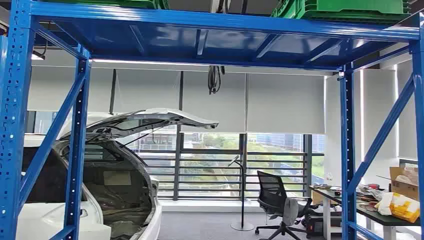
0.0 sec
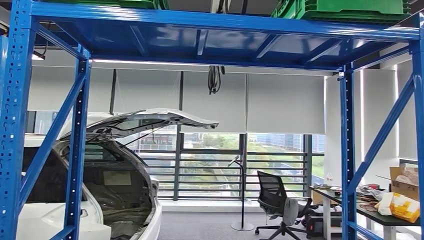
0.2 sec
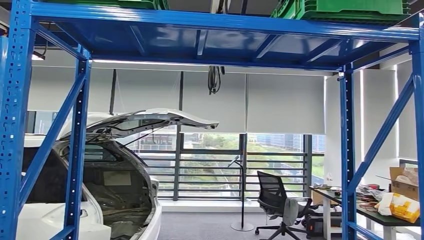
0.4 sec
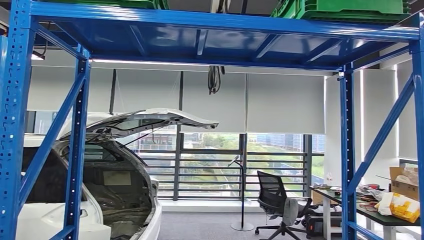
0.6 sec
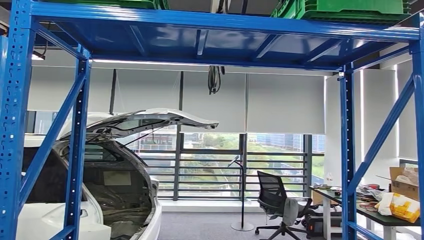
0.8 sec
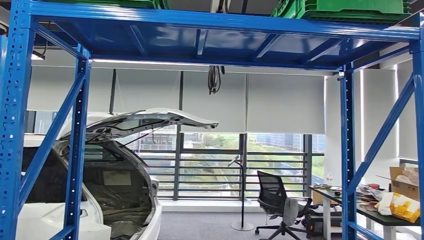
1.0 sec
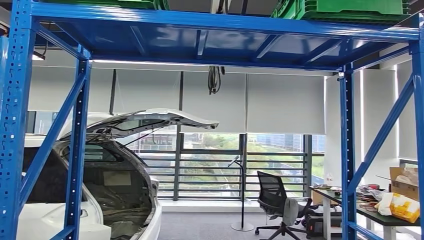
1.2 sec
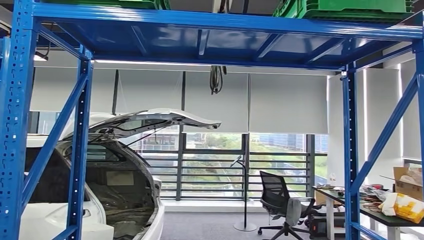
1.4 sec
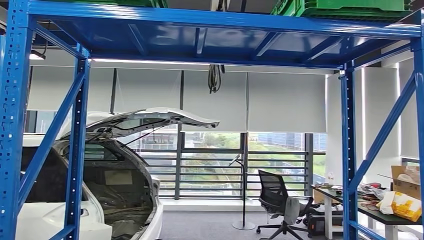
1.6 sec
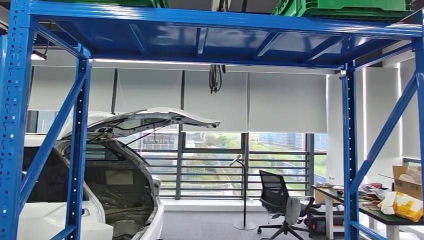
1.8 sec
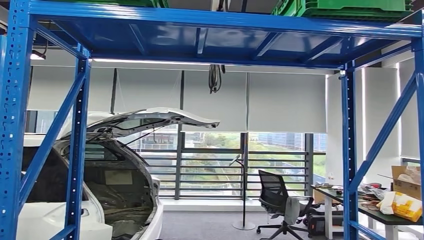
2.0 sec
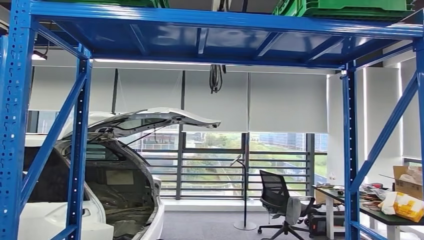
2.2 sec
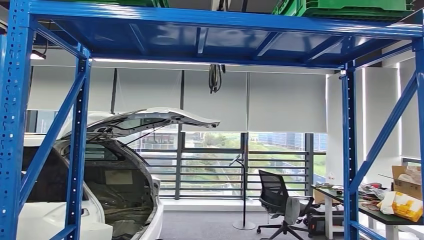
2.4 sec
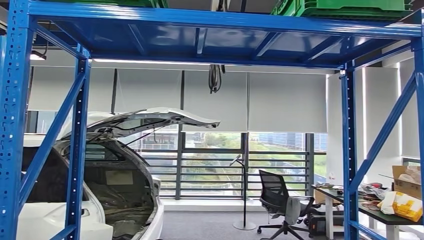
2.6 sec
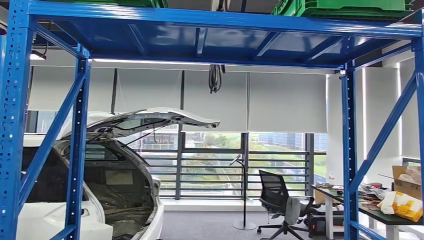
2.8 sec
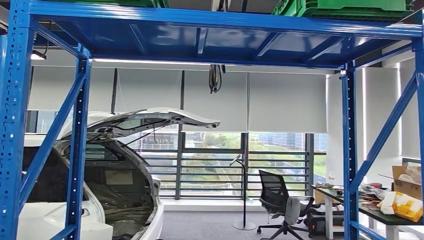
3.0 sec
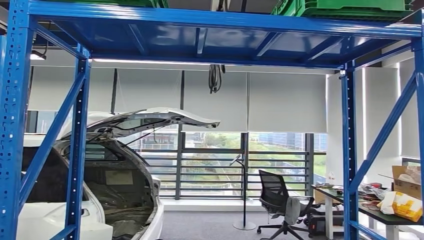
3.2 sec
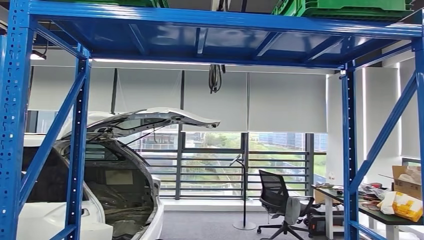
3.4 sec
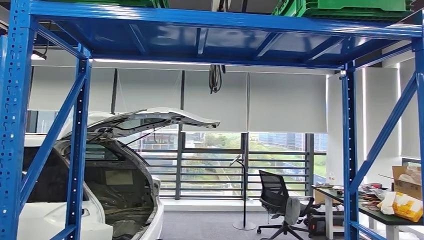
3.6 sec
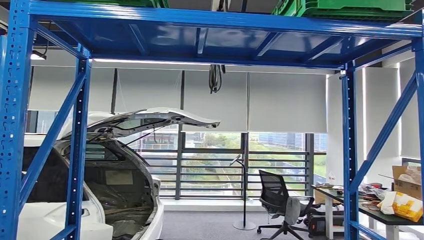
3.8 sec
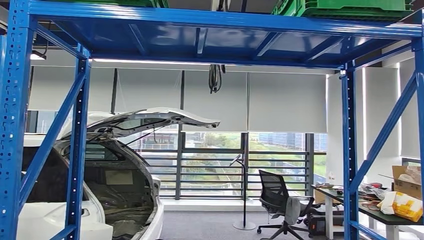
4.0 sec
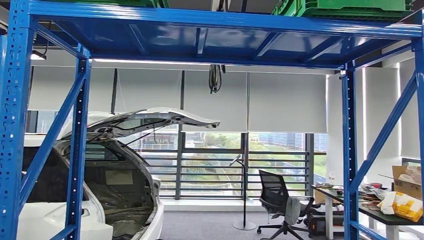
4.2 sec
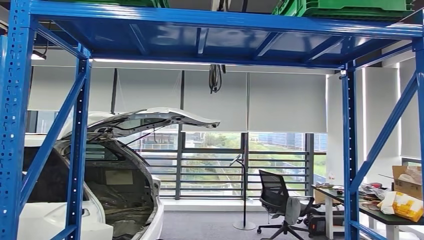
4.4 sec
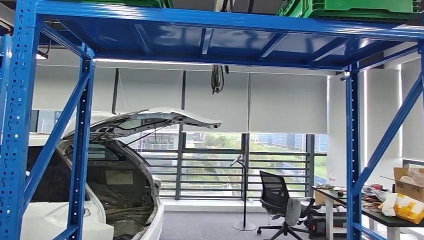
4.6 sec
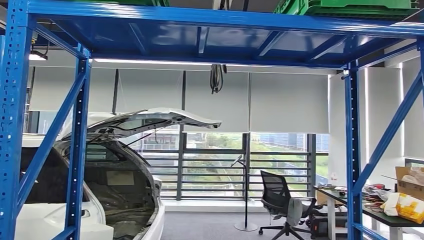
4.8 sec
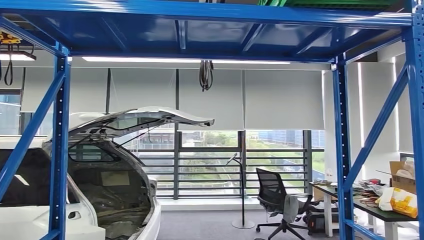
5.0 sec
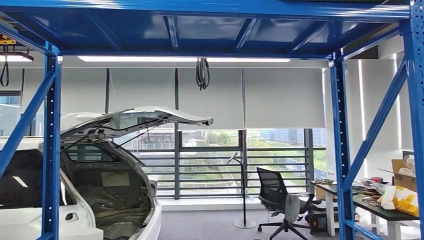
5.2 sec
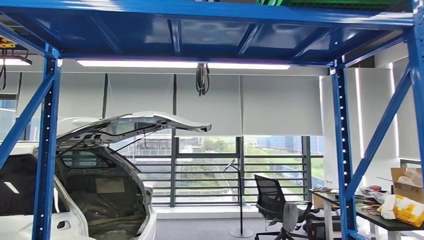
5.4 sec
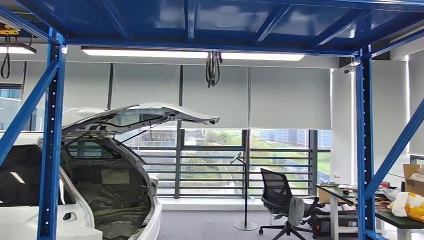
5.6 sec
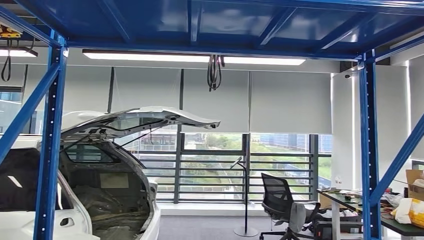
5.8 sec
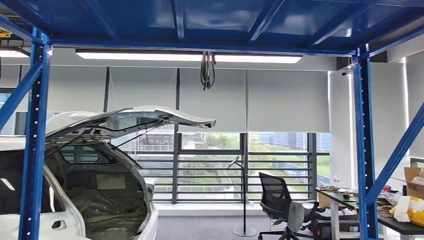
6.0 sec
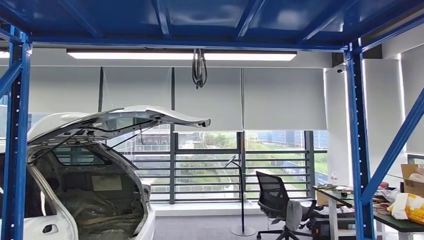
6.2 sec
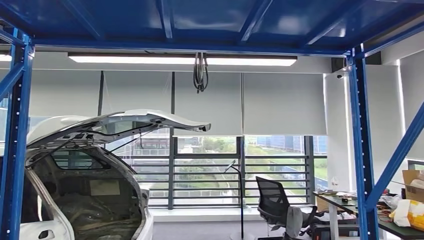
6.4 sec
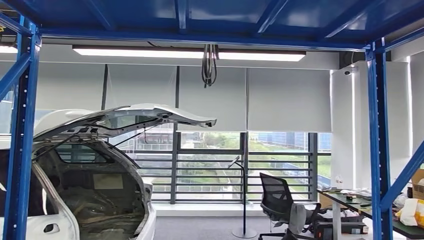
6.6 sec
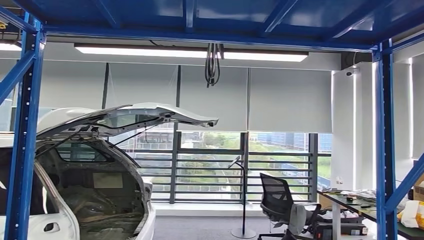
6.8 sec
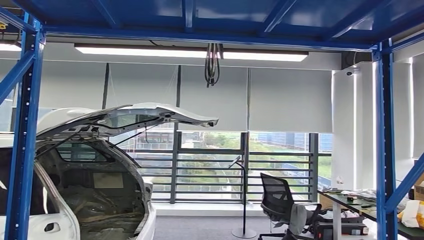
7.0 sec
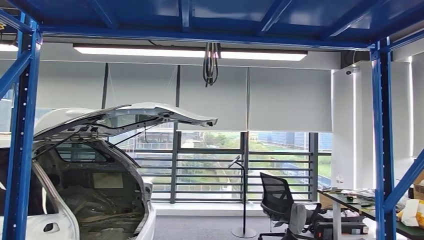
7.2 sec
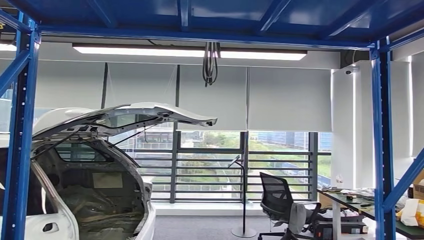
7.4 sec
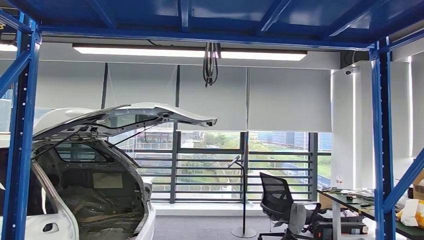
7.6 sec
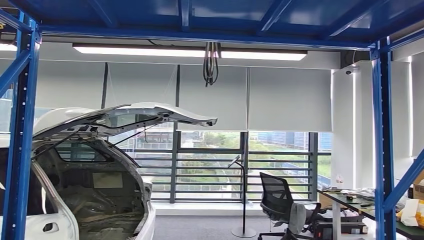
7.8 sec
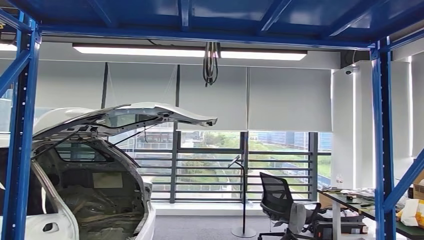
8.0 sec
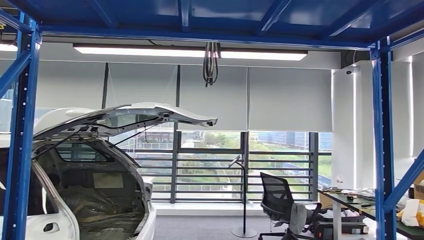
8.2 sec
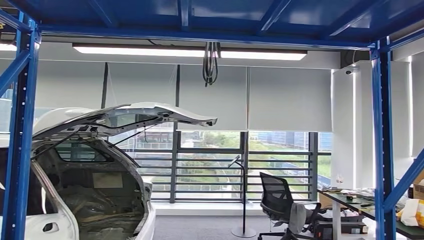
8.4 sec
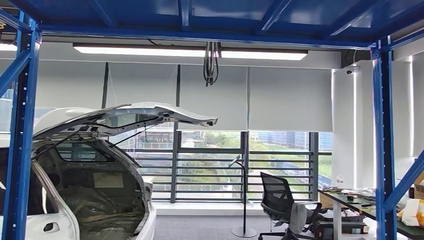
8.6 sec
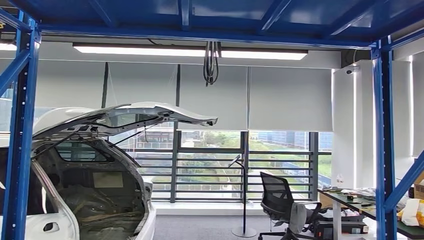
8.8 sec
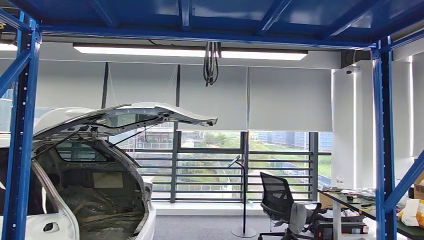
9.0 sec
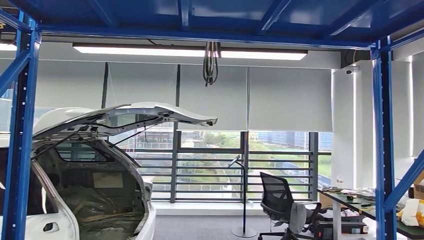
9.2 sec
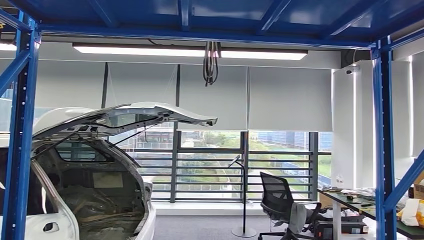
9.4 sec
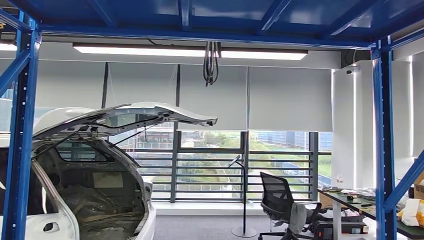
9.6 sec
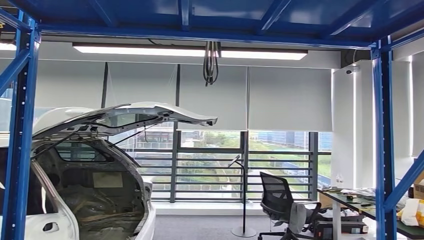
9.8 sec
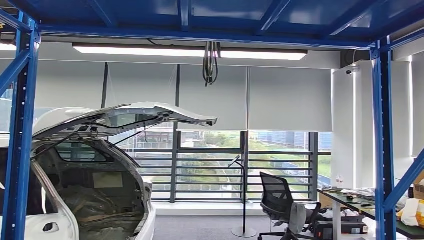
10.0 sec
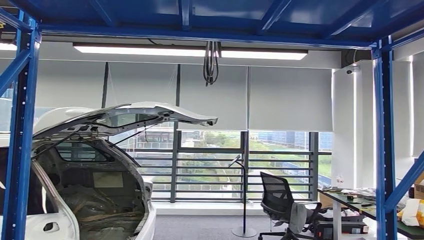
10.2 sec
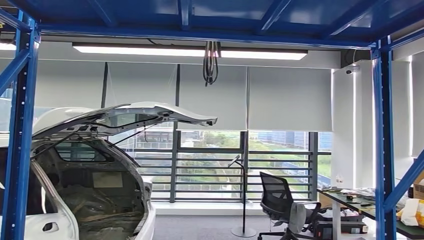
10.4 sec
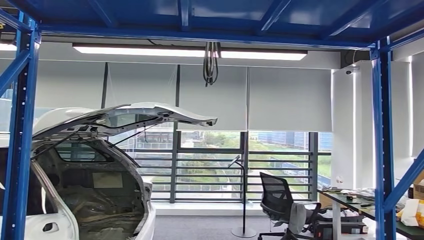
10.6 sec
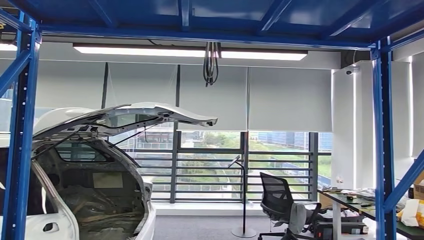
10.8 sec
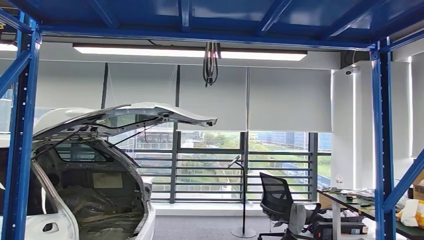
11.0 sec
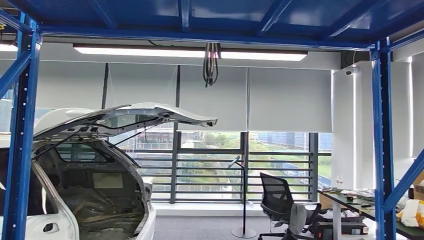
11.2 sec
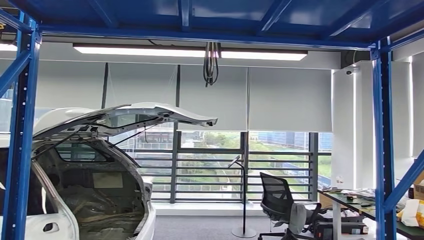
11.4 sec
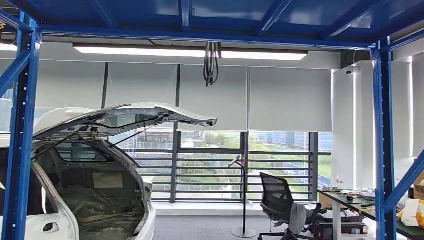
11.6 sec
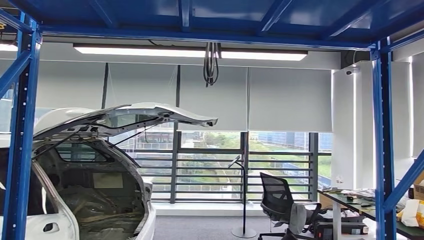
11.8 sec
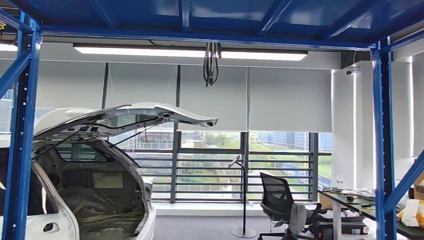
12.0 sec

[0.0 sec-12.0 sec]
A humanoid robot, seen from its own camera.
1.6 sec to 3.0 sec: The right hand heads upward and to the left, covering roughly 10 cm.
7.6 sec to 9.0 sec: The right hand goes approximately 15 cm forward and downward.
9.0 sec to 10.4 sec: The right hand heads to the left, covering about 5 cm.
10.4 sec to 12.0 sec: The right hand goes roughly 5 cm to the left.

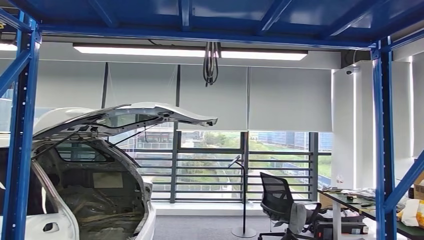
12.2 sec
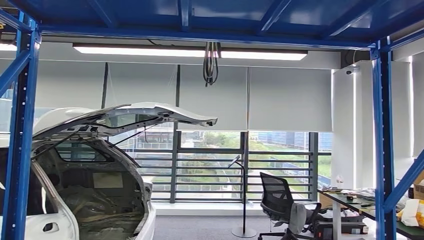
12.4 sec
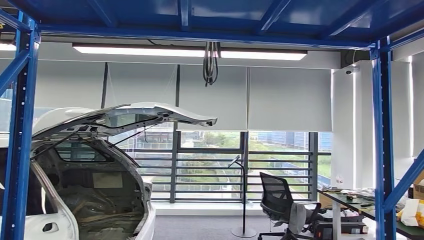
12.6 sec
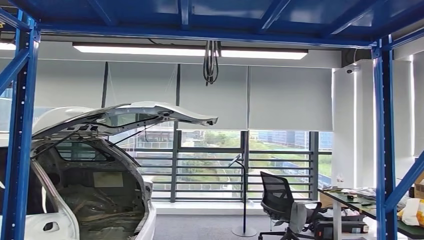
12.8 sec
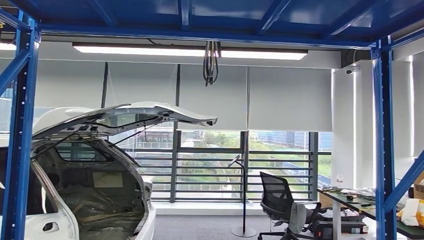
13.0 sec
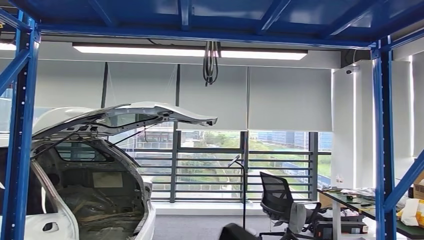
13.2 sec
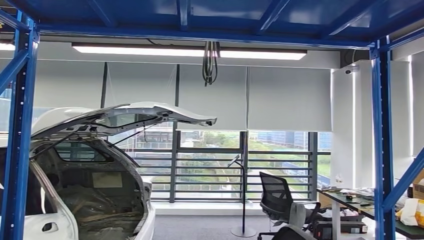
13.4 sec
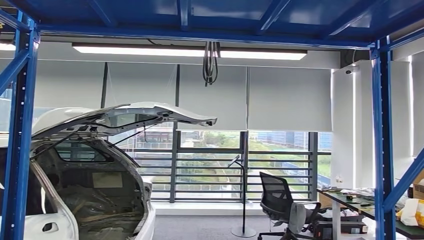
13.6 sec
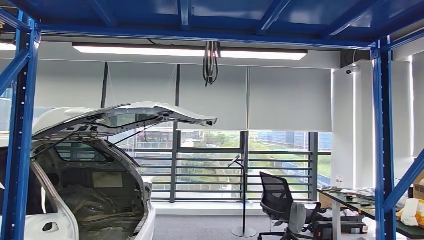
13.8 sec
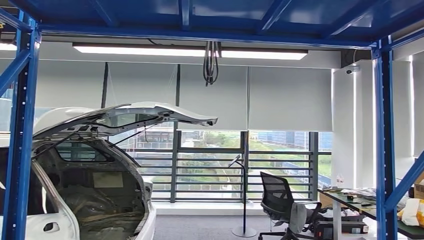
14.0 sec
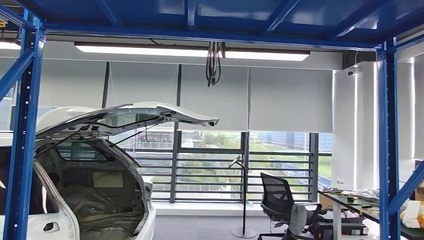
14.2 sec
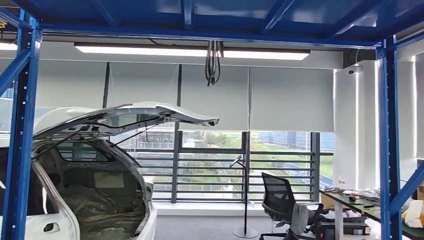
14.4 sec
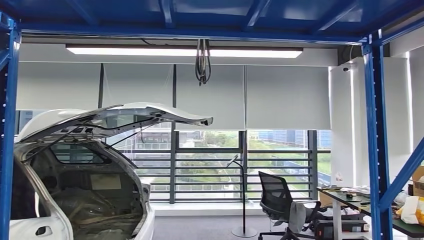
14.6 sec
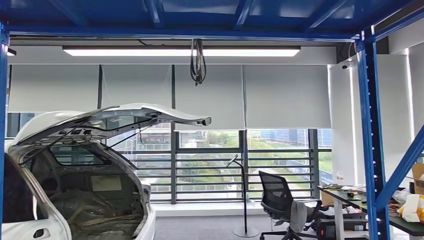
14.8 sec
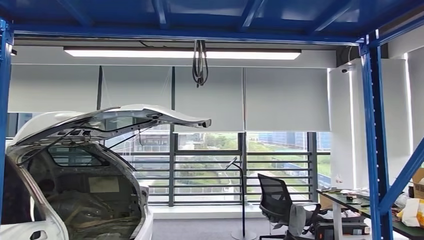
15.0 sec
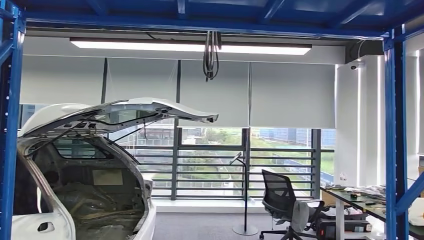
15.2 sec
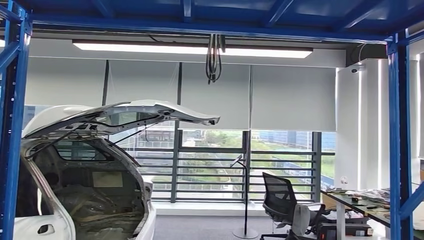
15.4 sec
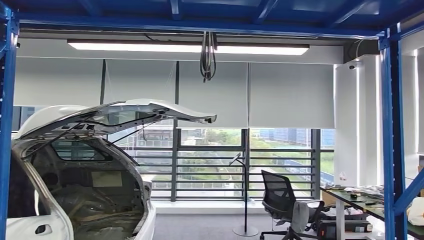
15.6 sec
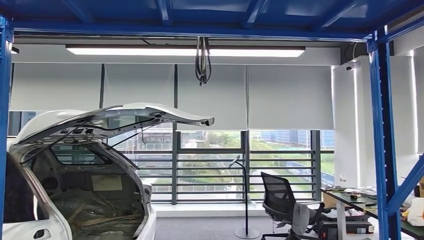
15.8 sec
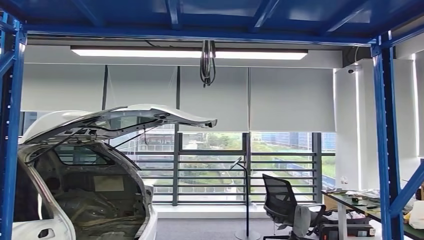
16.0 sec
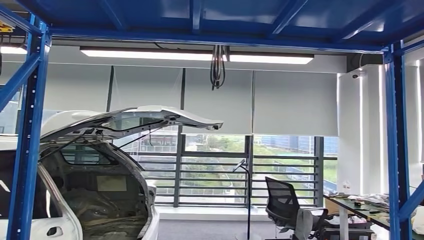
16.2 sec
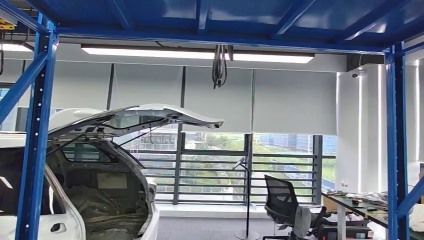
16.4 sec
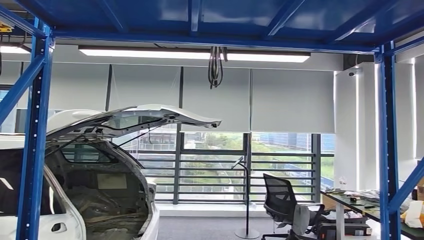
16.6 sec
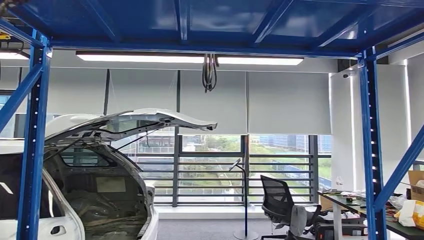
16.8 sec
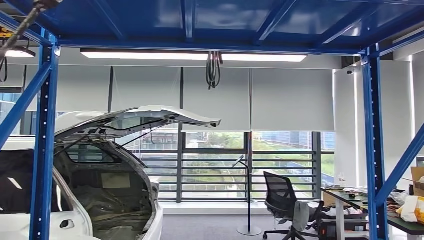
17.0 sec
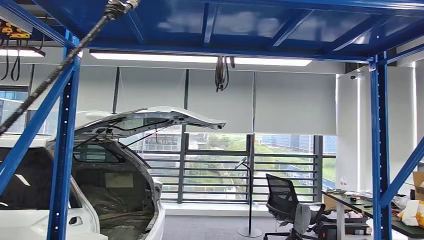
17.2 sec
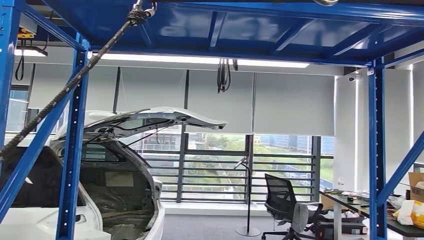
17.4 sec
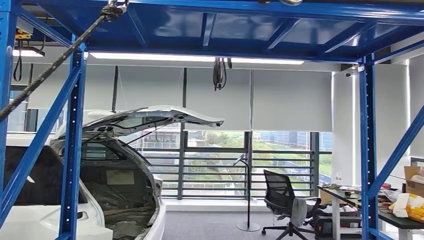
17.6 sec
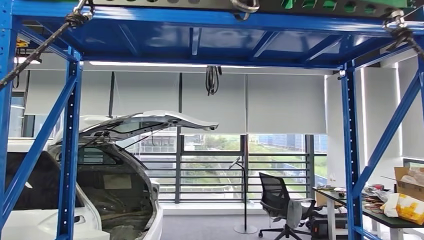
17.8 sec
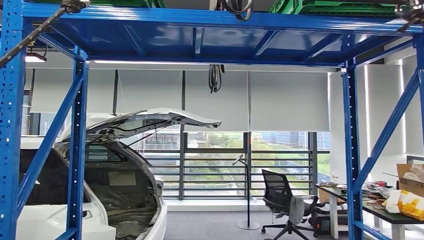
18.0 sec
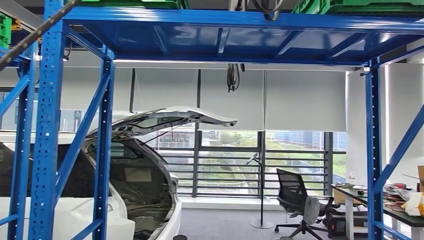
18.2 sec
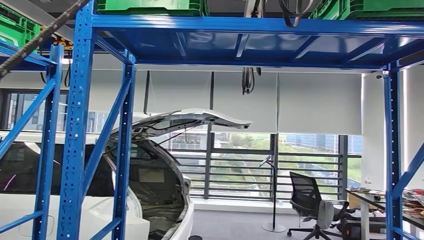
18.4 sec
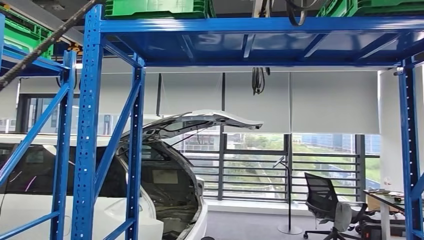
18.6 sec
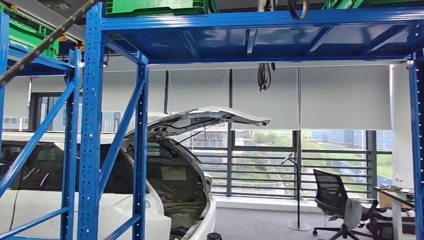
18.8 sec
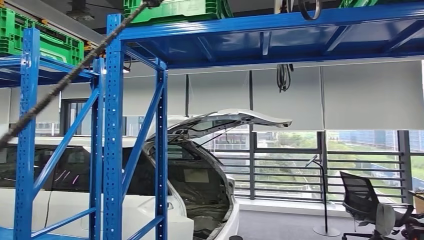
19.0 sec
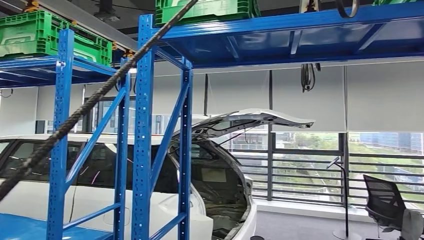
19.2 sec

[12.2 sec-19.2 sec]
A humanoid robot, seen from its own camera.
12.2 sec to 13.6 sec: The right hand travels backward and upward by roughly 20 cm.
